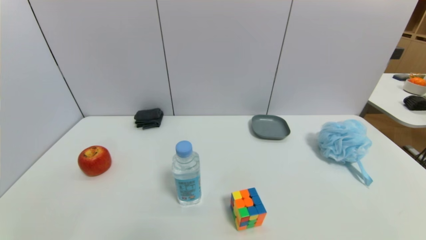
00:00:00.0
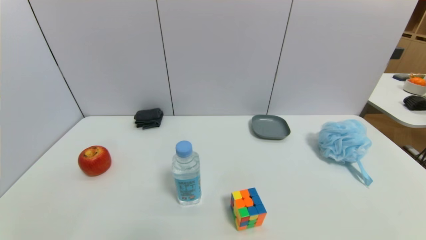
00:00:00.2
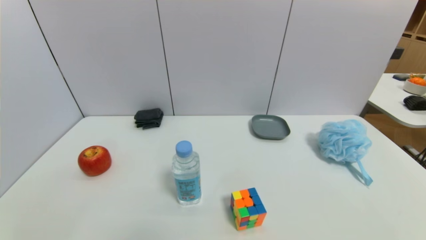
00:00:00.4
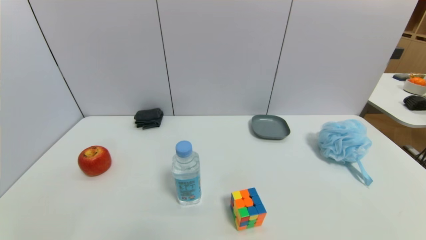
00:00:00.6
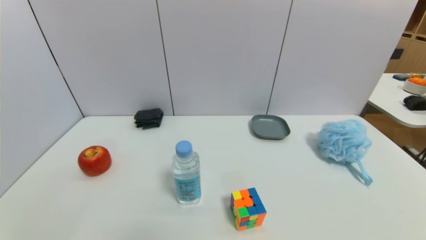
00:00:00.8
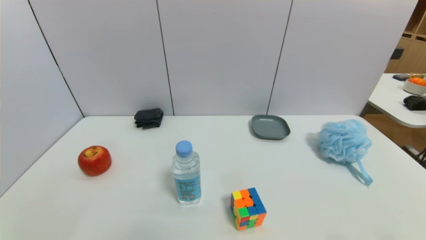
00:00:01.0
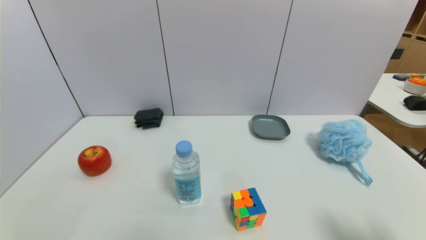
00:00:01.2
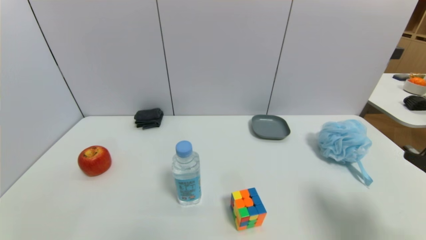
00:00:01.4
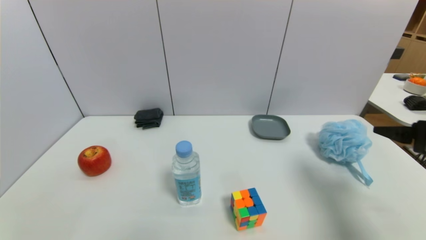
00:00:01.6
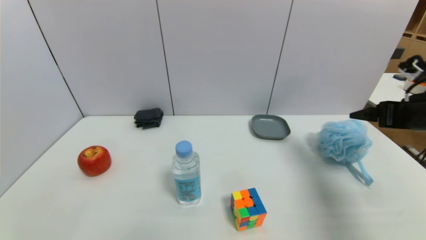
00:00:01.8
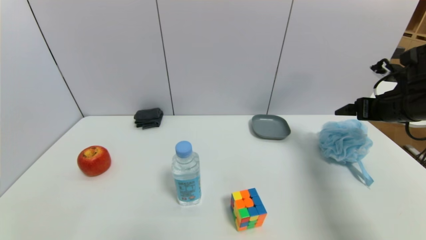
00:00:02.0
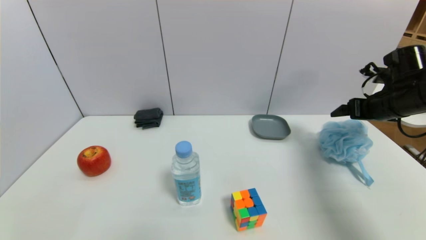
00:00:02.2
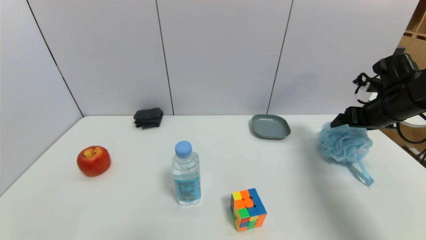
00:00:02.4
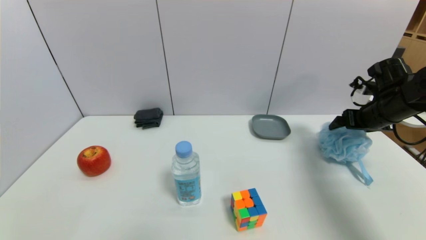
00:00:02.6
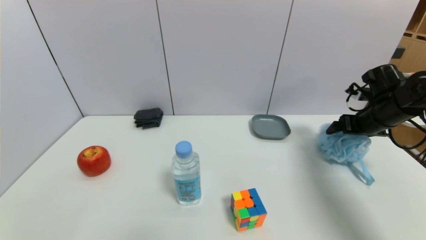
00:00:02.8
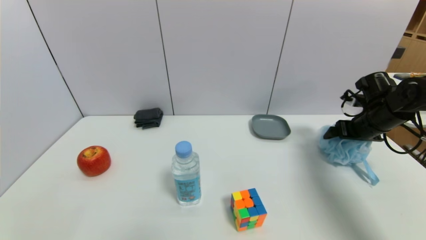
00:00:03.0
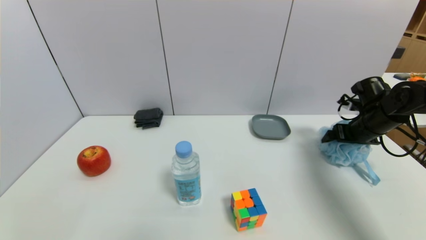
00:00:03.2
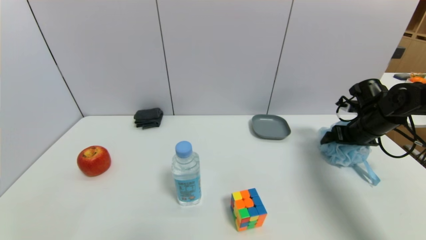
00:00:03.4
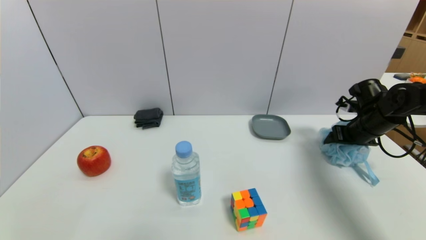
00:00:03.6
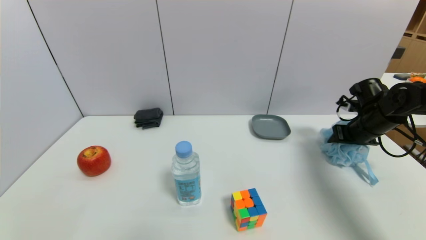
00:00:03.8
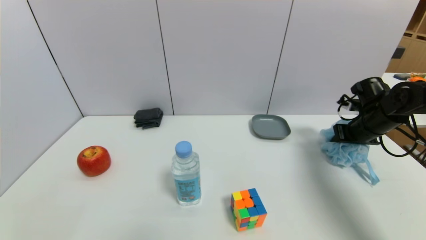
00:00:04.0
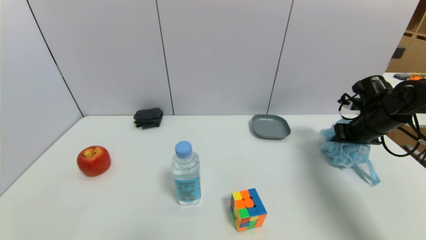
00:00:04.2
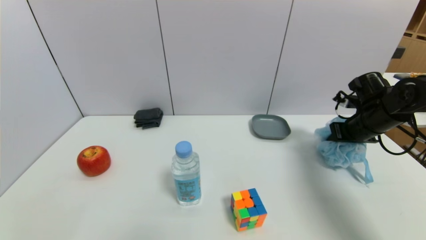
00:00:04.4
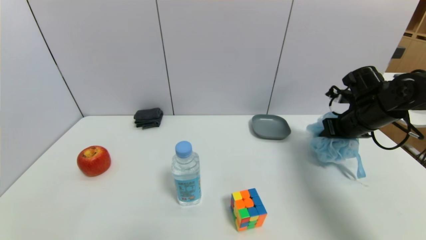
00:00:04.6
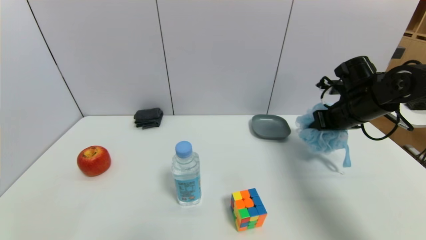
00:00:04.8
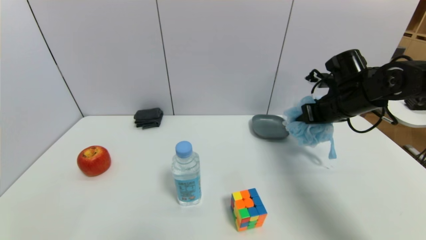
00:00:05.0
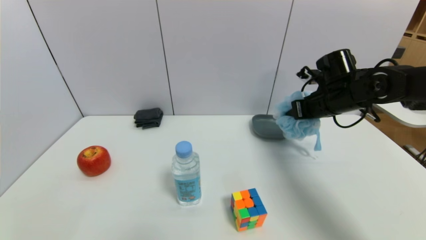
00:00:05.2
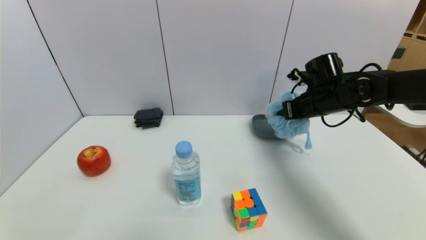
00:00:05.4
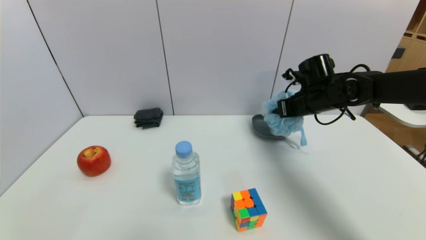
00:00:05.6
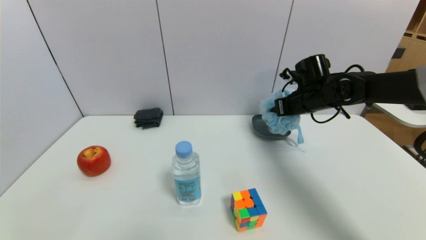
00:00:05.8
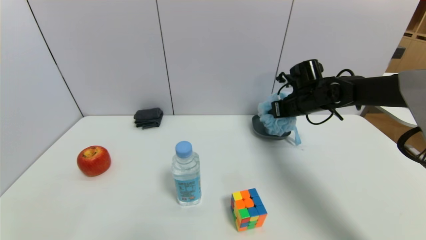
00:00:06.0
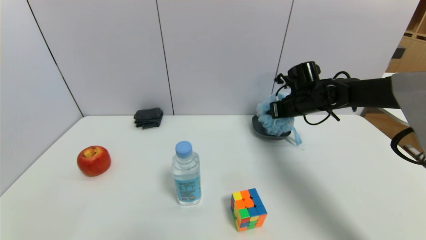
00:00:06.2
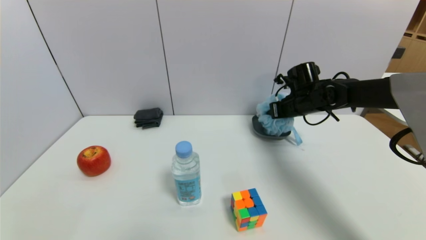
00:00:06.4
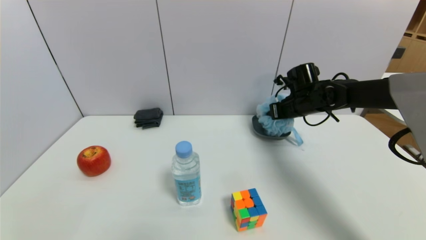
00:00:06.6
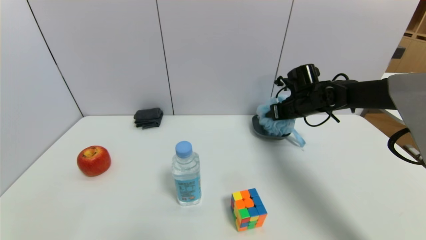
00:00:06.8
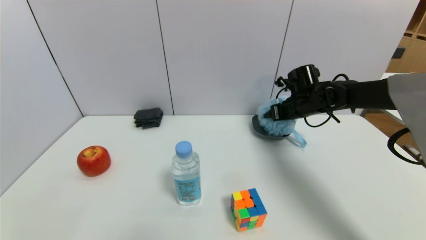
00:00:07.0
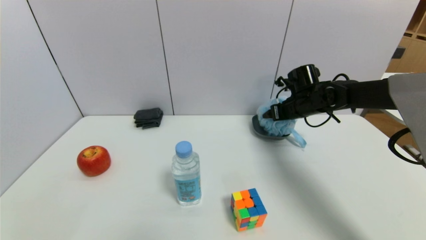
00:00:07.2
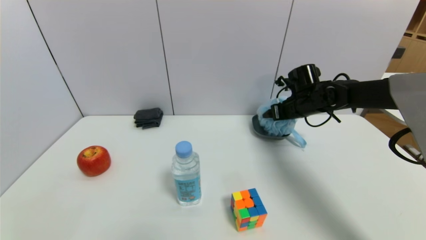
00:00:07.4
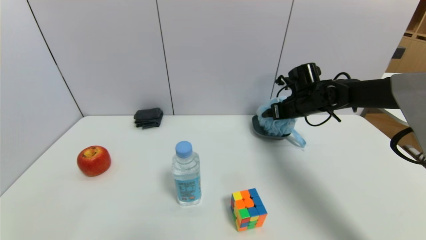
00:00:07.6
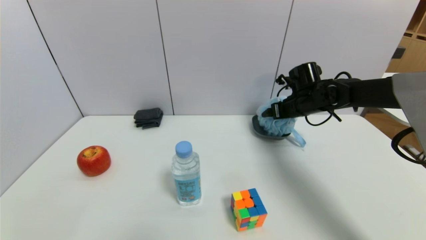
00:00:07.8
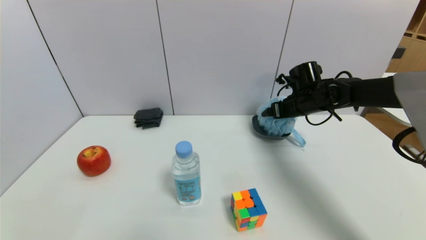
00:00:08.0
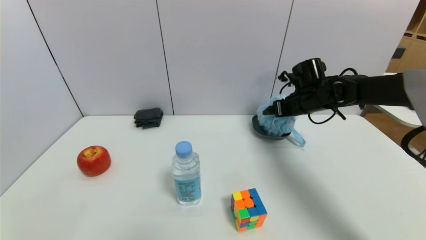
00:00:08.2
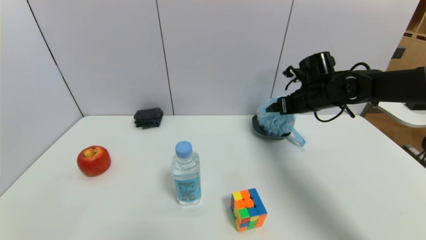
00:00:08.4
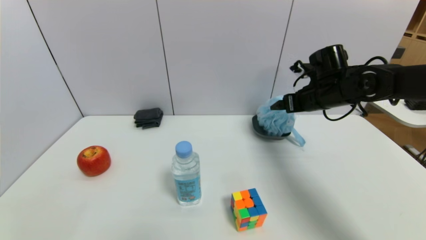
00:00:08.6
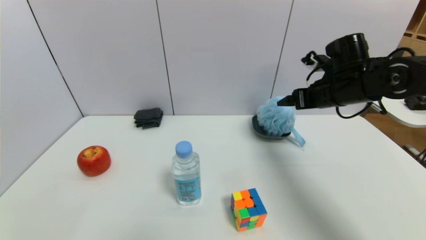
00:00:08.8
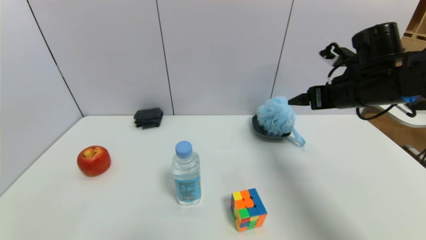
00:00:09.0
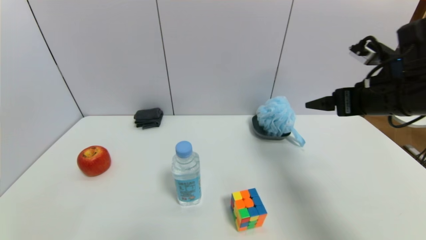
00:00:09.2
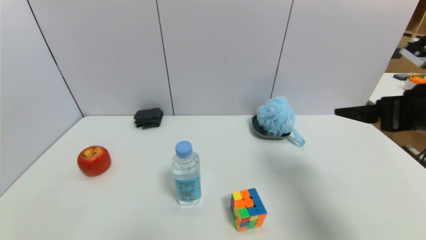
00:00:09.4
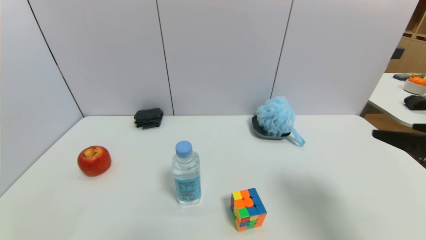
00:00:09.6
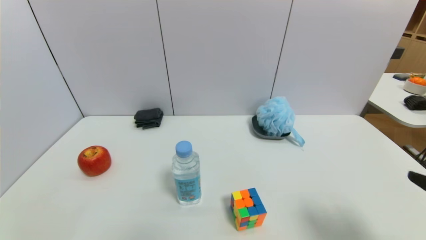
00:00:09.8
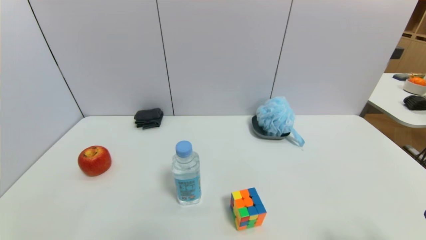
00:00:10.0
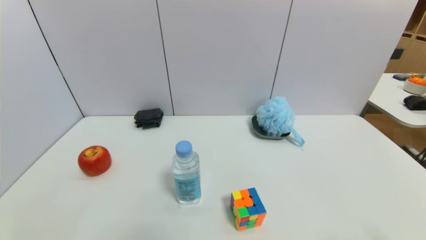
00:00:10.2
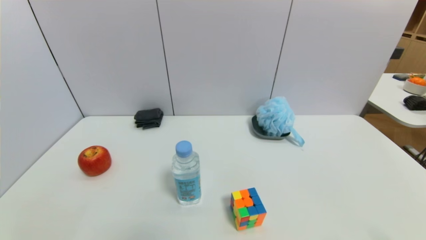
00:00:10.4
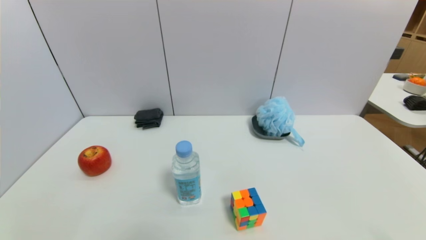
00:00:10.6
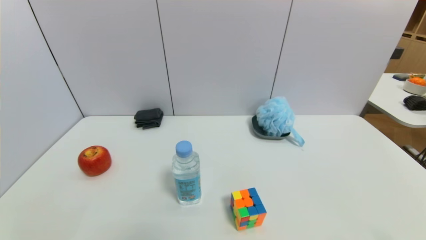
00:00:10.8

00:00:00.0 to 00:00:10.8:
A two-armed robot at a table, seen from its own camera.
Task of the whole recording: use a gripper to pick the target object and place on the dish.
Step, 00:00:00.0 to 00:00:04.2: Grasp the shower sphere with the right gripper.
Step, 00:00:04.4 to 00:00:08.6: Place the shower sphere on the dish with the right gripper.
00:00:00.0 to 00:00:01.6: The right gripper goes some 25 cm forward and upward.
00:00:01.6 to 00:00:03.0: The right gripper shifts some 20 cm forward.
00:00:03.0 to 00:00:04.6: The right gripper closes its fingers.
00:00:04.6 to 00:00:06.2: The right gripper heads to the left and forward, covering about 15 cm.
00:00:06.2 to 00:00:07.8: The right gripper opens.
00:00:07.8 to 00:00:09.2: The right gripper is displaced backward and upward by roughly 20 cm.
00:00:09.2 to 00:00:10.8: The right gripper travels backward and downward by some 30 cm.

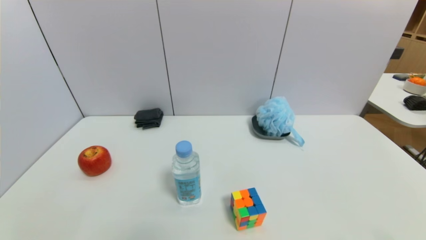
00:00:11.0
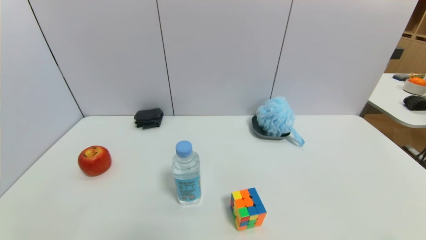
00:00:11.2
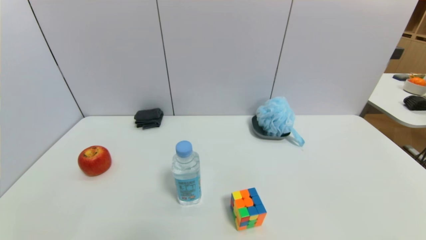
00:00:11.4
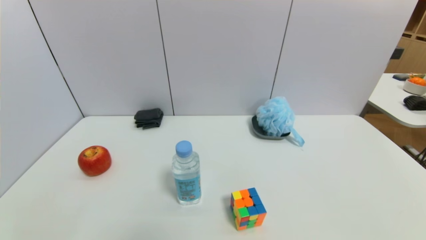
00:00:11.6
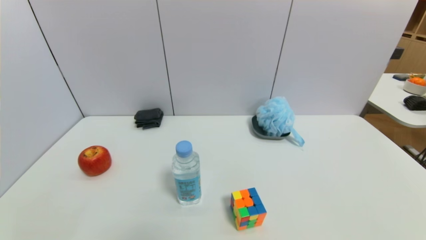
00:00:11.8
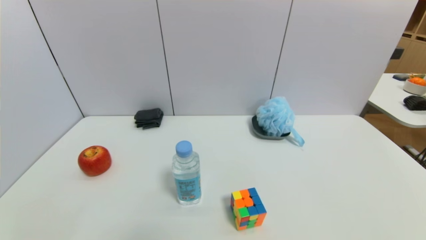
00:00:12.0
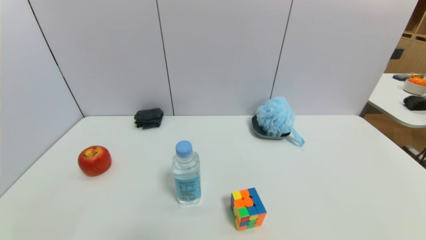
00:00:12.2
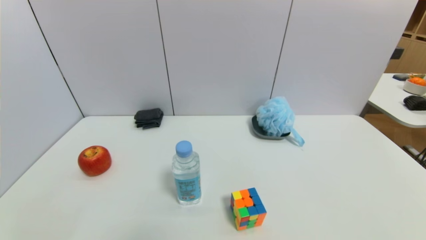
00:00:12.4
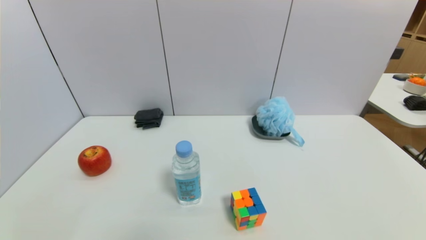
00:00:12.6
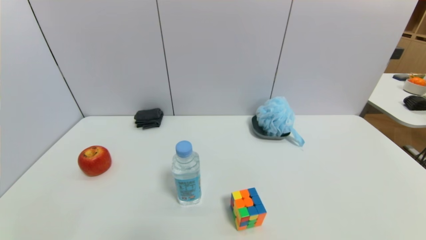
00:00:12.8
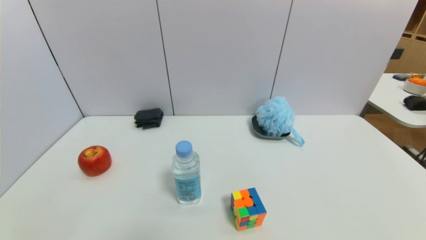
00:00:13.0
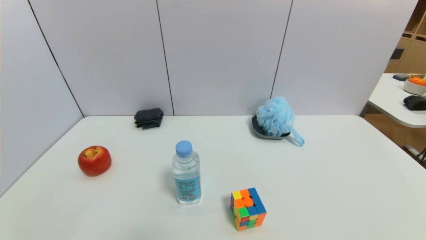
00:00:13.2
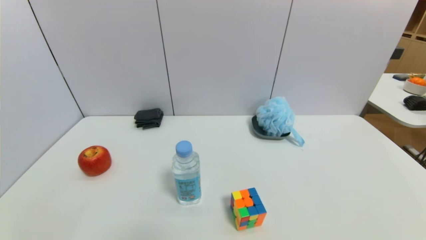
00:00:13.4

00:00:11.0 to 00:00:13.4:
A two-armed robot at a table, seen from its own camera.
Task of the whole recording: use a gripper to pick the target object and place on the dish.
00:00:12.2 to 00:00:13.4: Neither gripper changes place.

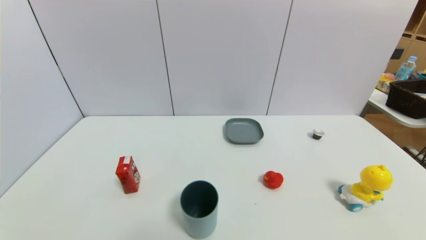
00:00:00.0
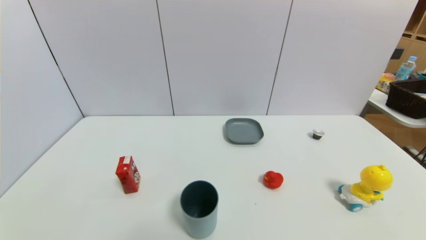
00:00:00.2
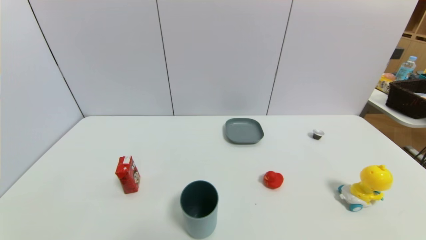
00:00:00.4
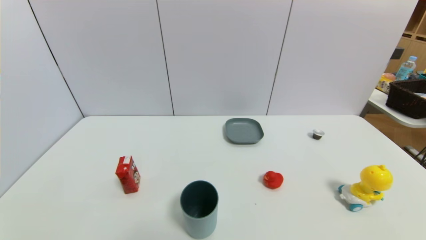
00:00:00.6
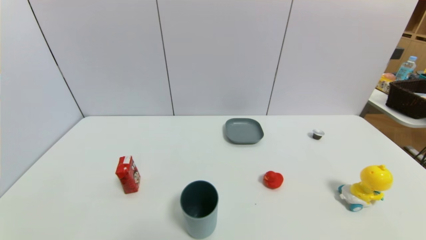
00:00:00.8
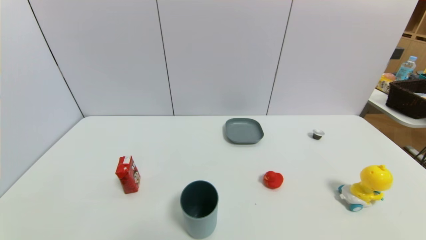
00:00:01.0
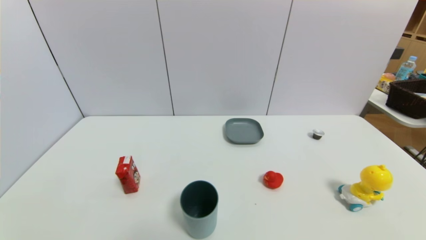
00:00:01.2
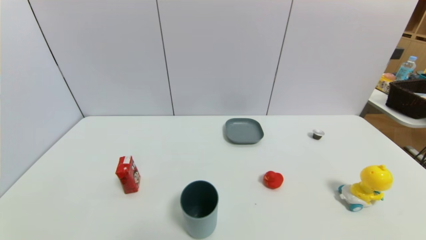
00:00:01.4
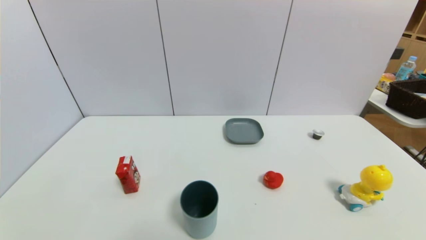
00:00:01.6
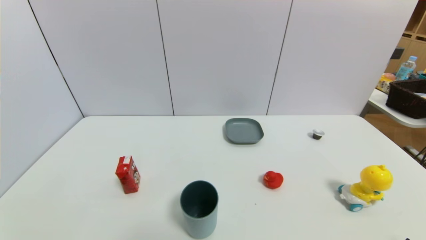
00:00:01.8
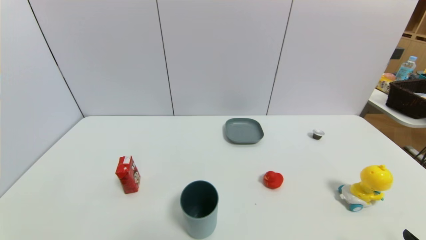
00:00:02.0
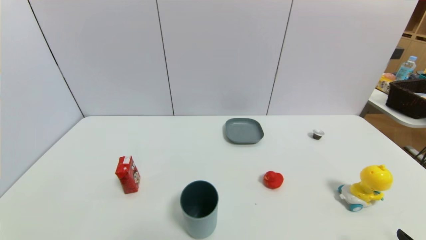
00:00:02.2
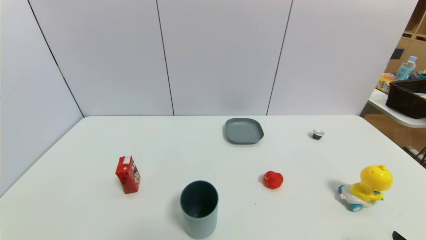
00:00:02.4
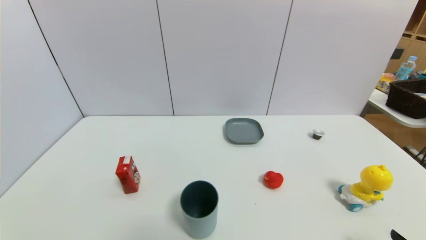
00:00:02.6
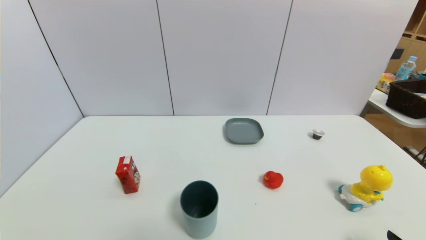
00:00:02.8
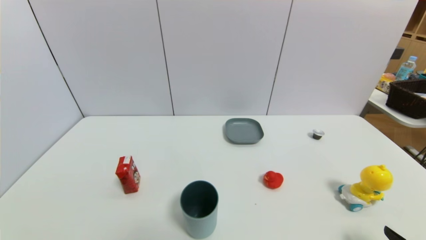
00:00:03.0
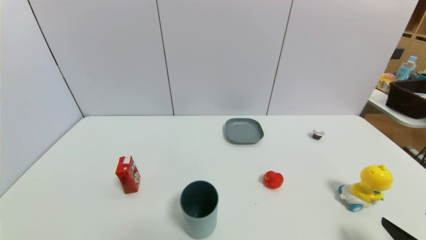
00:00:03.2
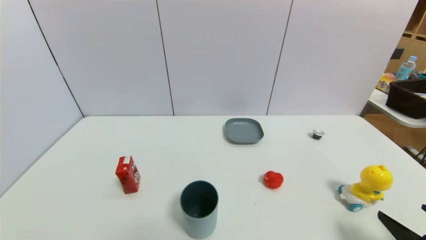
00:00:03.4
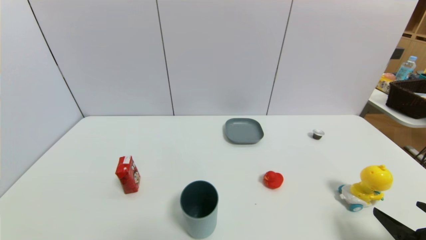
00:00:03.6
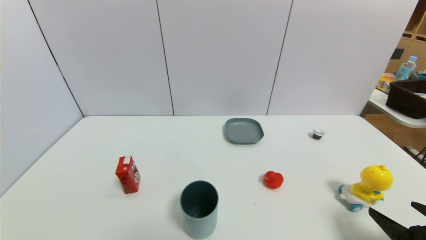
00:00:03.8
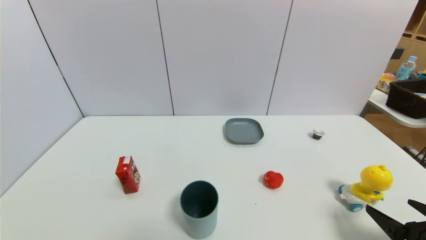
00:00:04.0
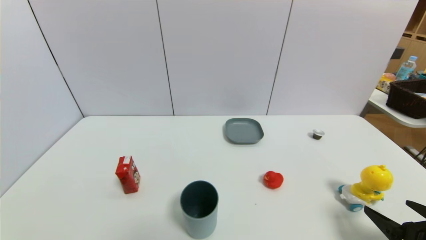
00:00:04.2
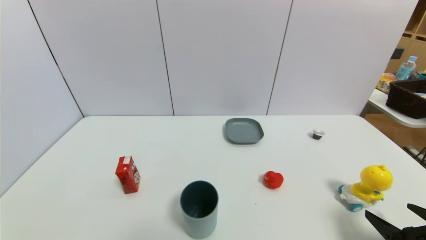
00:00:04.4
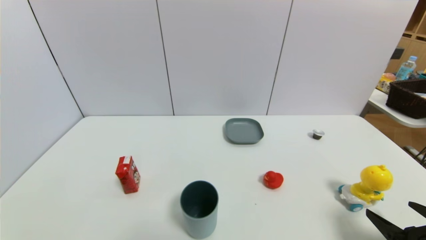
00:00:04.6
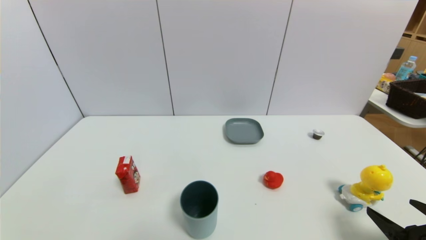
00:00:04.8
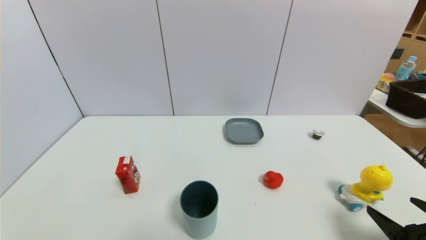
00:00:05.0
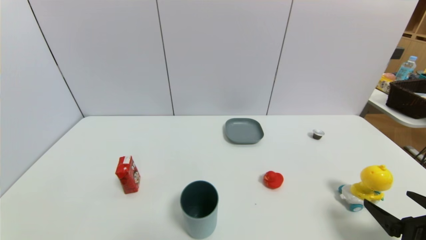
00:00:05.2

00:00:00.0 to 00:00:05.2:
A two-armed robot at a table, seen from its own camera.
Task of the whole recording: use a gripper to pick the target object and place on the dish.
00:00:01.8 to 00:00:03.4: The right gripper moves forward, about 5 cm.
00:00:03.4 to 00:00:05.2: The grippers move only a little.
